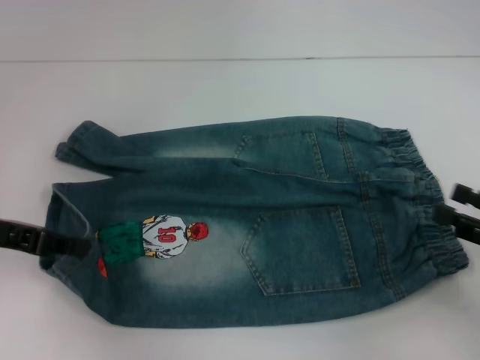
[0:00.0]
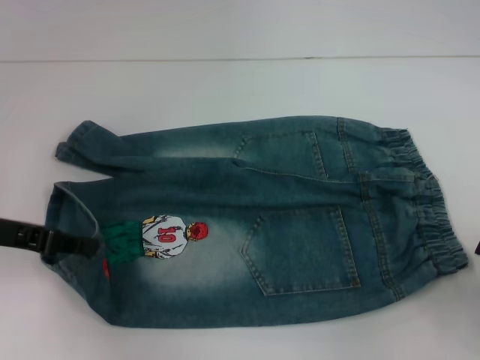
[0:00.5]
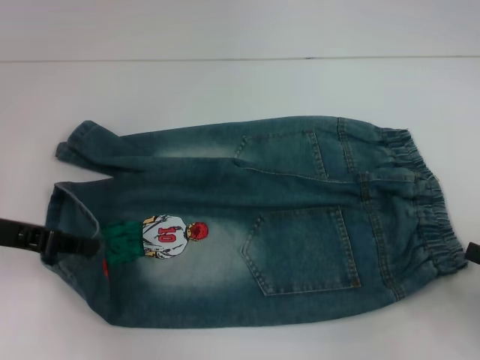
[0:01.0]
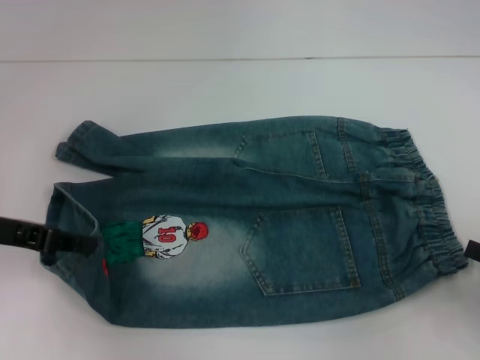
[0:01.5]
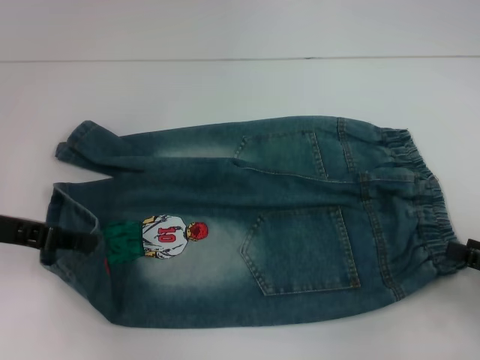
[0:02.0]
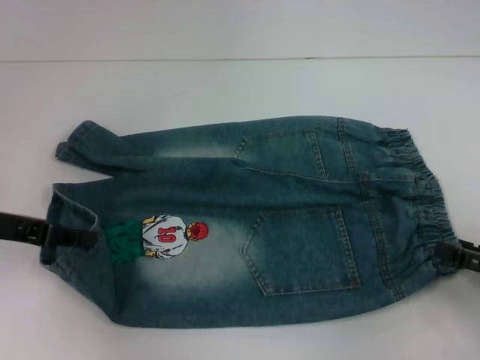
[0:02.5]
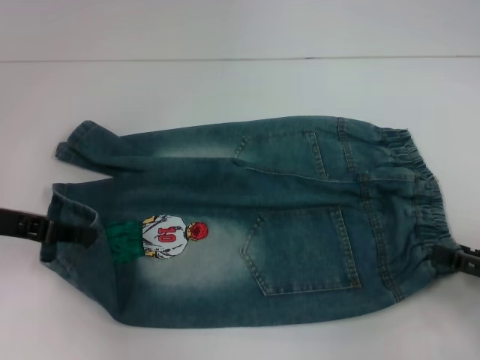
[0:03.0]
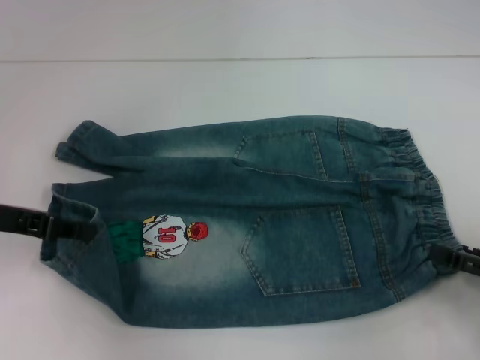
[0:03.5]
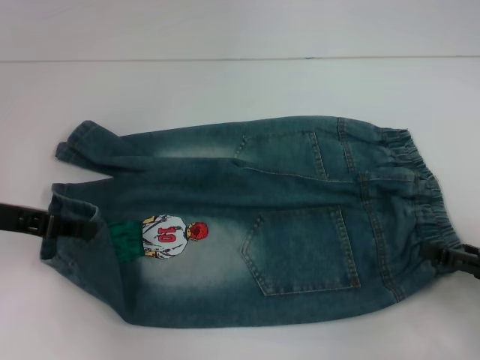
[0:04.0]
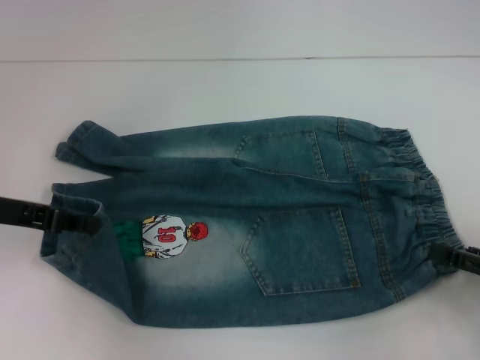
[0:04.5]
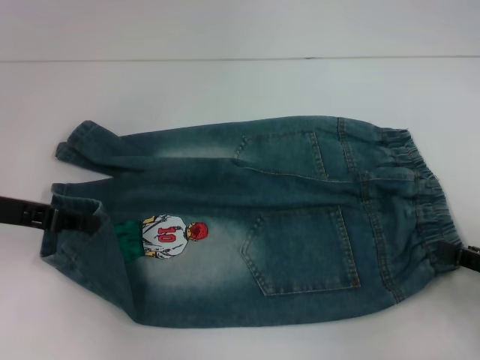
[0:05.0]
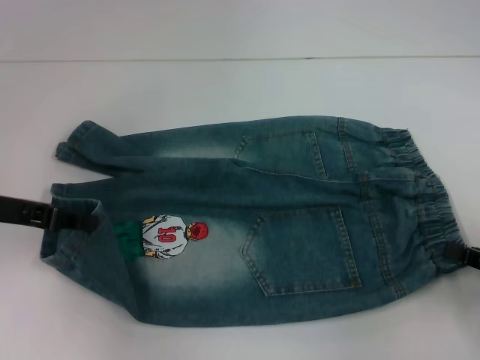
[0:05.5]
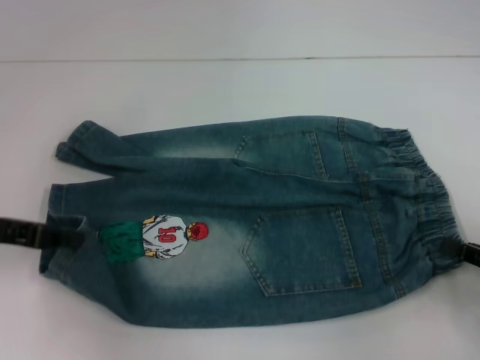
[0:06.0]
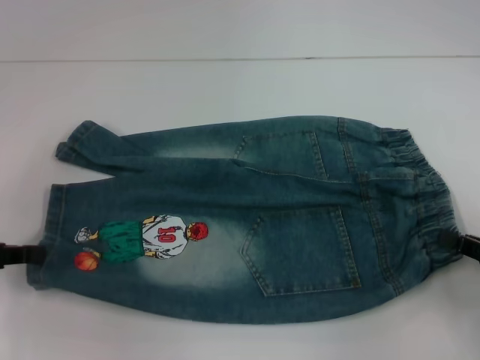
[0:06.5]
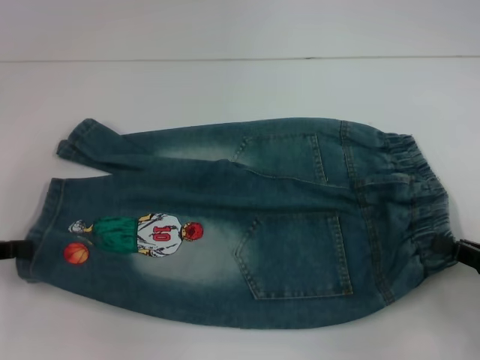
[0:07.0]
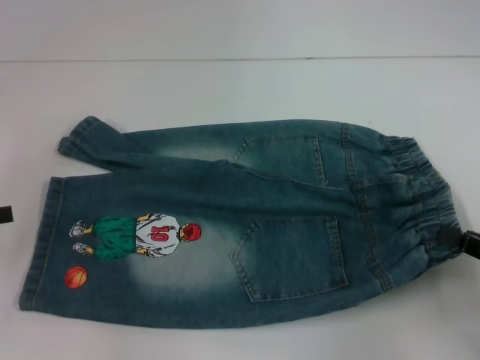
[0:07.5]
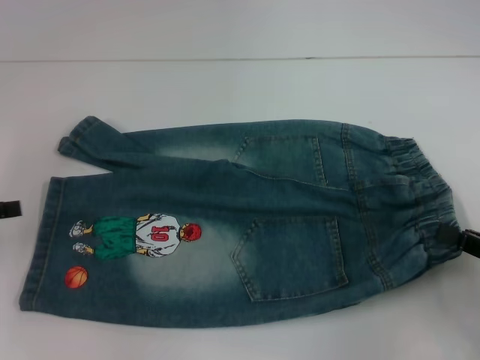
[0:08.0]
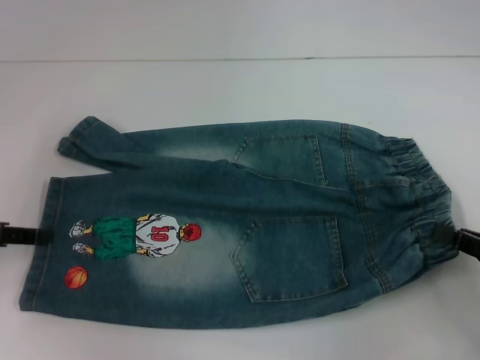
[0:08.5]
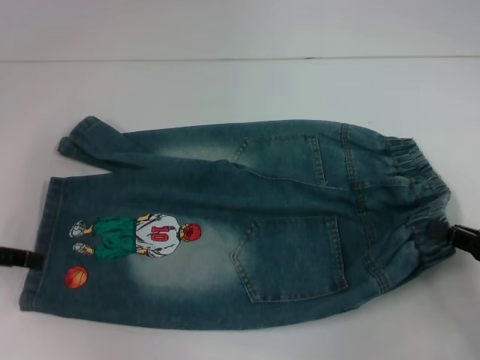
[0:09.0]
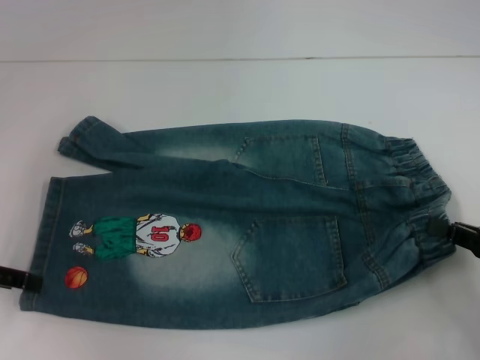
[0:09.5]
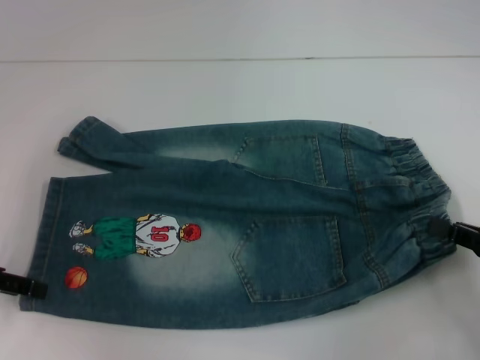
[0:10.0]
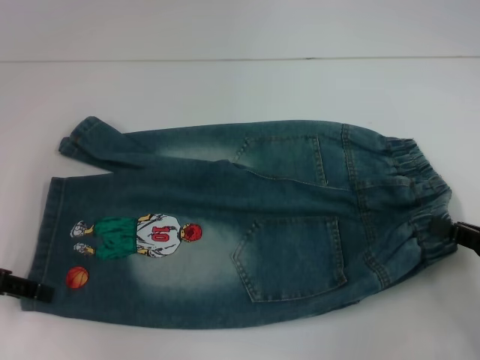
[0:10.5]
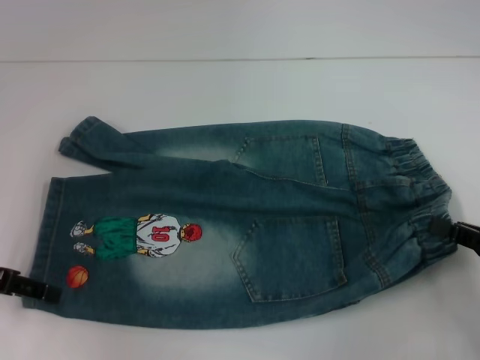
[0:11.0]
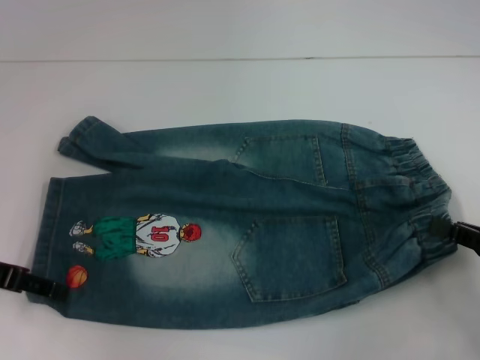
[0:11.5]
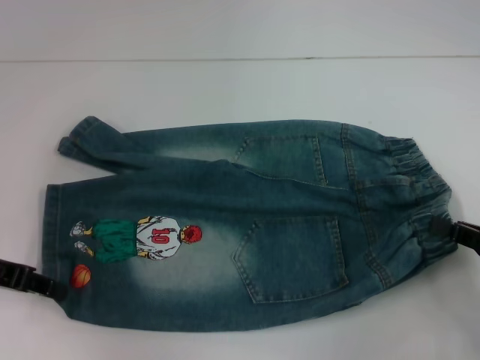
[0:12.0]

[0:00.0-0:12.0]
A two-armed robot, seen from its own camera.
Step, 0.0 to 3.5 s: Hold the lower right waistband with your right hand.
2.0 to 4.0 s: The grippers stay close to where they were, moving slightly.
4.0 to 6.0 s: The right gripper closes up.
6.0 to 8.0 s: The left gripper travels to the left by some 5 cm.
8.0 to 10.0 s: The left gripper opens.
10.0 to 12.0 s: The left gripper closes up.

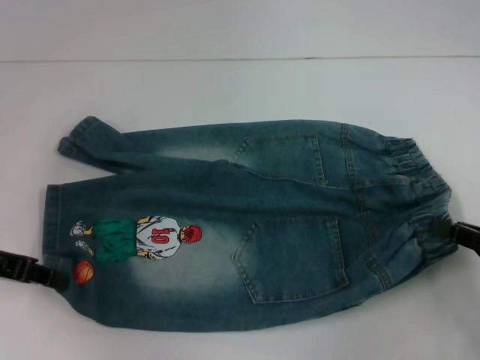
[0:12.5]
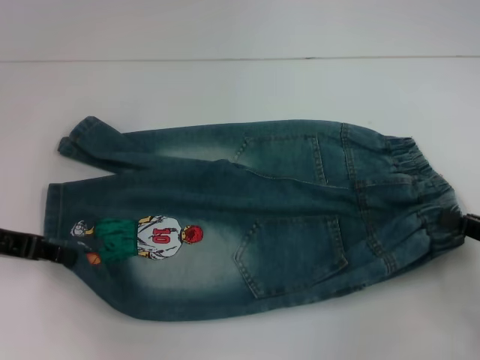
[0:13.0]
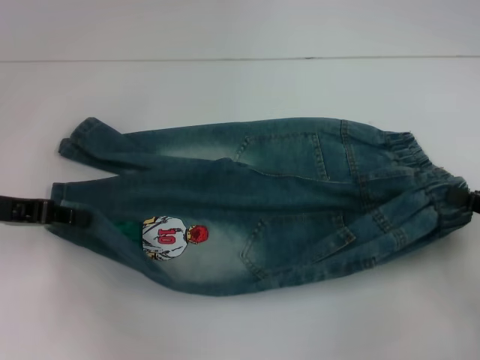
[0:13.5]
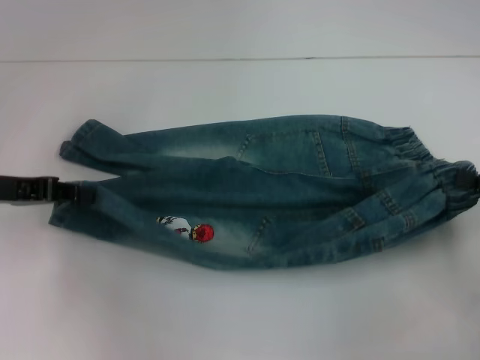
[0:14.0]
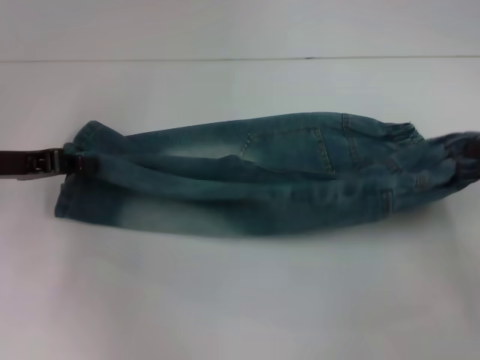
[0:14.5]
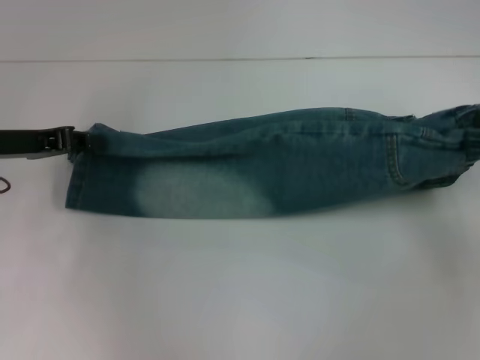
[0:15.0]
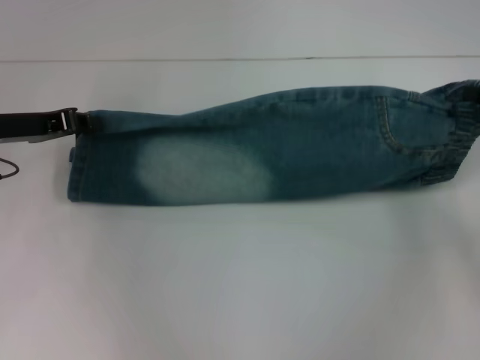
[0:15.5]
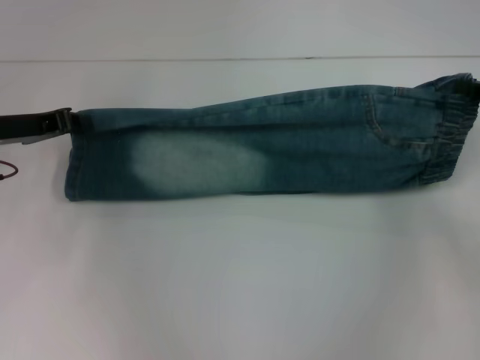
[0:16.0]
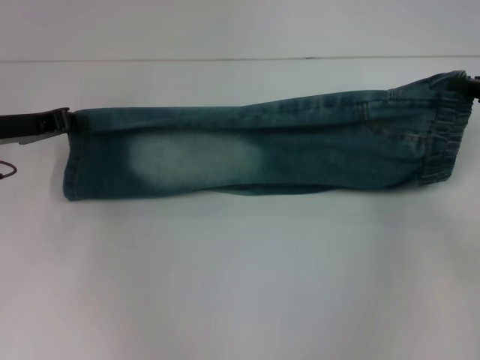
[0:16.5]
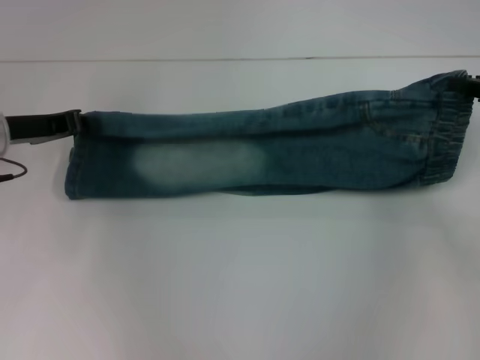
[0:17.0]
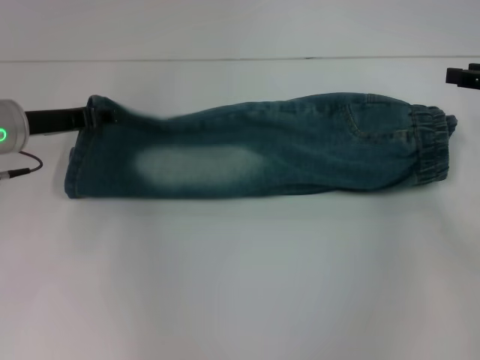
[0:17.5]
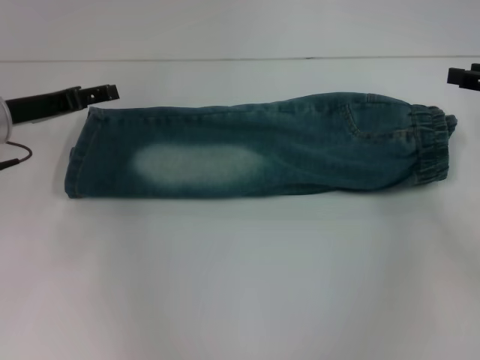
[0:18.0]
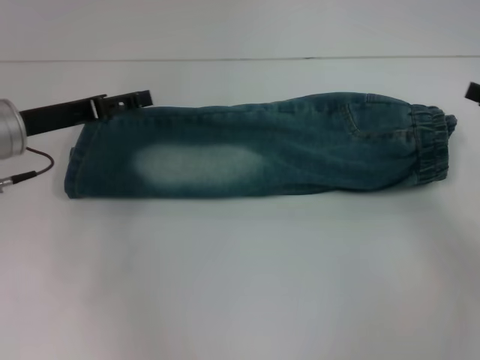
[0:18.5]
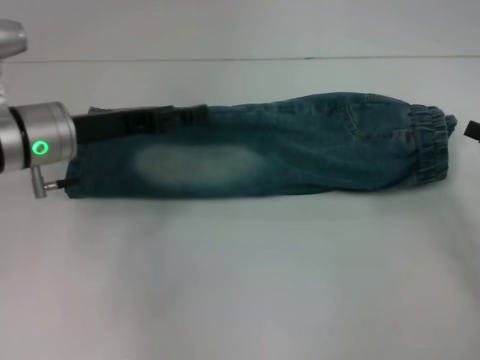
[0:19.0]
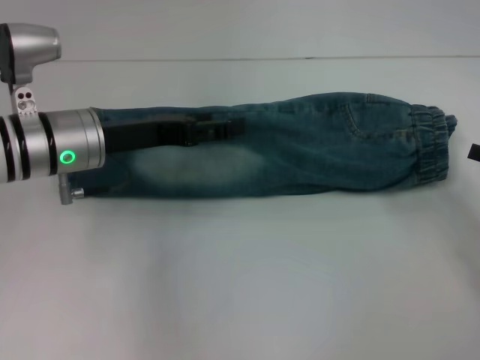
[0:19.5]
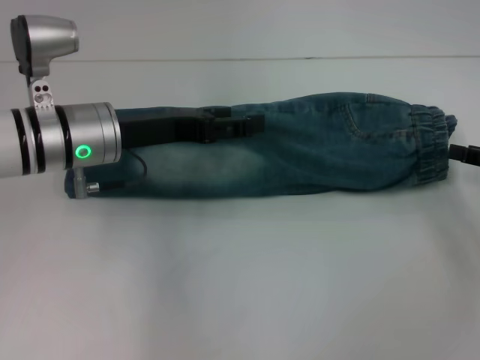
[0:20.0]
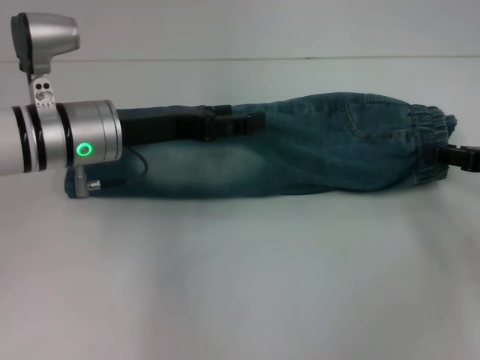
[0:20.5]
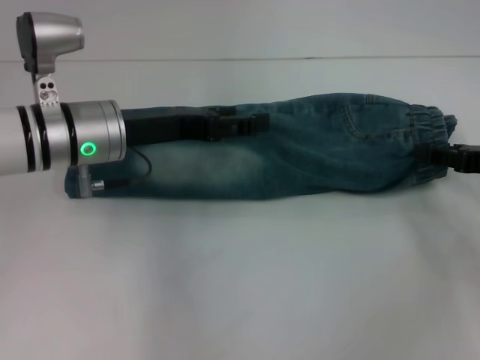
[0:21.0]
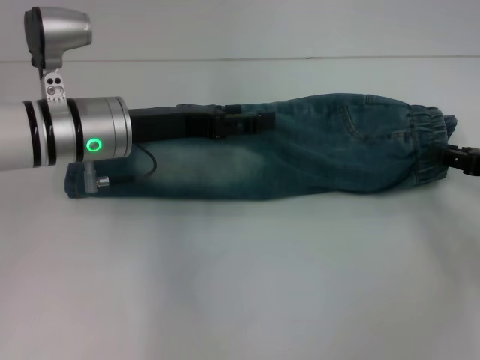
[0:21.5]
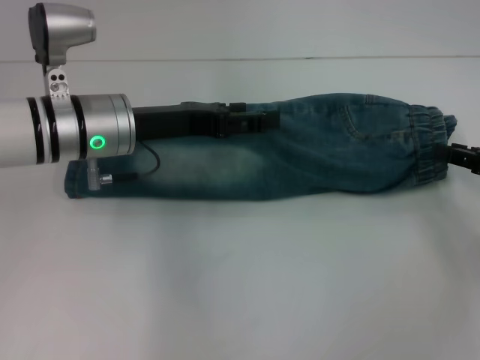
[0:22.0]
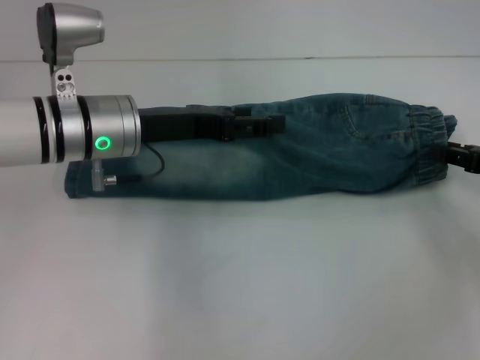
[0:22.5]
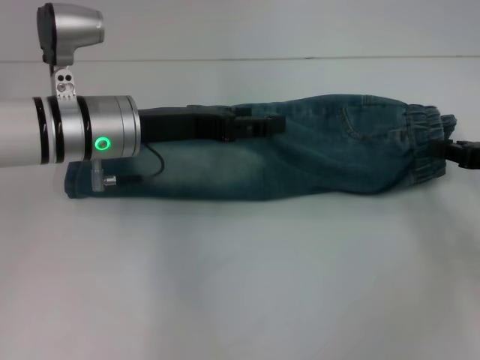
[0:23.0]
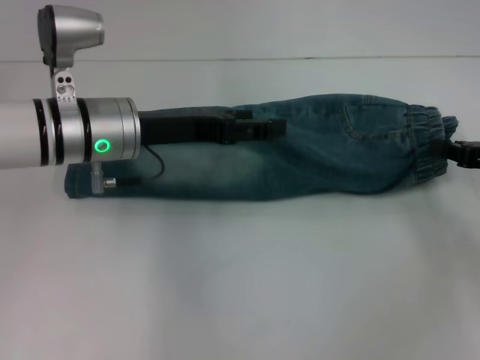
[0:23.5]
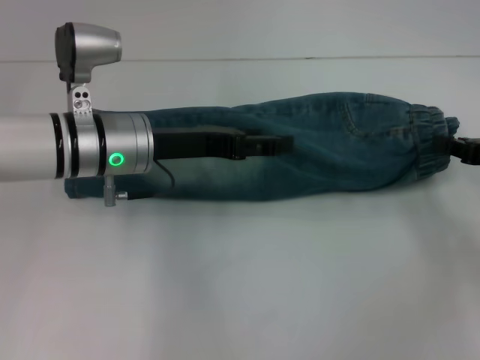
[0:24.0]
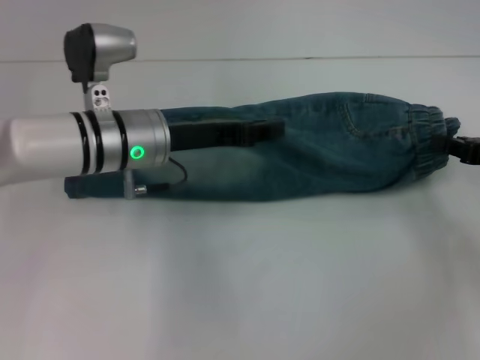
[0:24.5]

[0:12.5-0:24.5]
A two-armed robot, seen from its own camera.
Step, 12.5 to 18.0 s: Fold upward with your right hand.
Step, 18.5 to 22.0 s: Grab the waistband with your right hand.
12.5 to 14.5 s: The right gripper shifts roughly 10 cm forward and upward.
14.5 to 16.5 s: The right gripper goes some 10 cm forward.
16.5 to 18.5 s: The left gripper opens, while the right gripper heads backward, covering some 5 cm, and opens its fingers.
18.5 to 20.5 s: The left gripper goes some 10 cm to the right.
20.5 to 22.5 s: The grippers move only a little.
22.5 to 24.5 s: The left gripper closes its fingers; the right gripper closes its fingers.

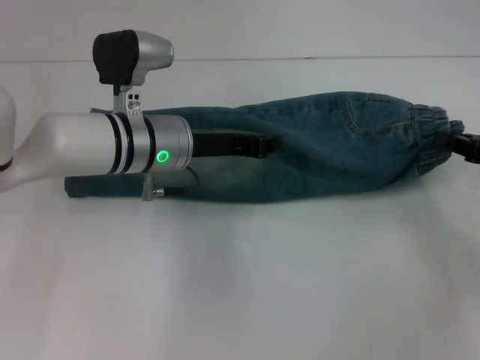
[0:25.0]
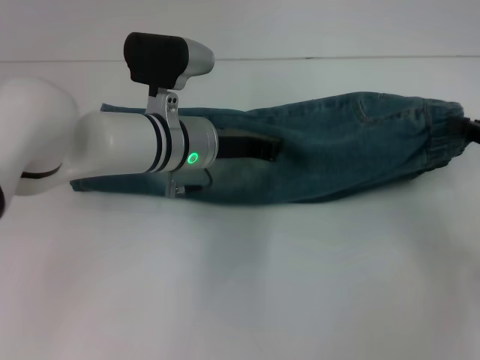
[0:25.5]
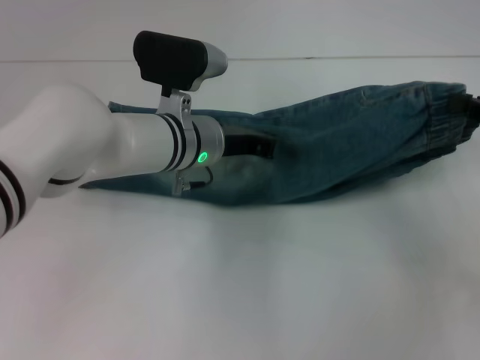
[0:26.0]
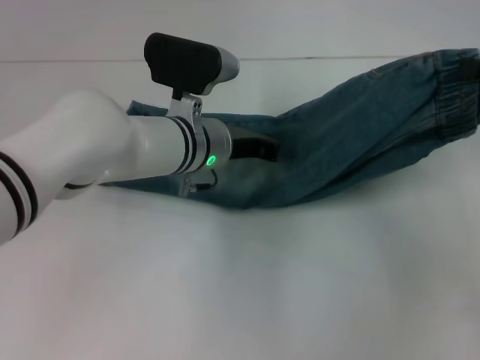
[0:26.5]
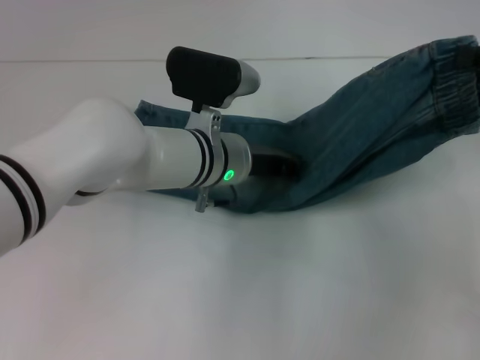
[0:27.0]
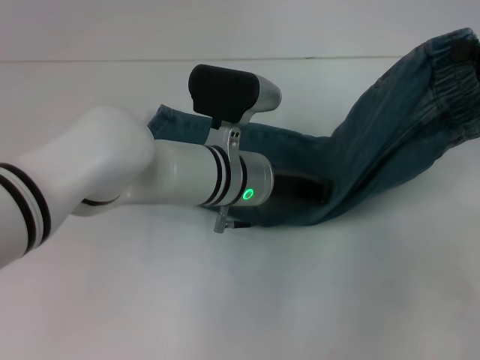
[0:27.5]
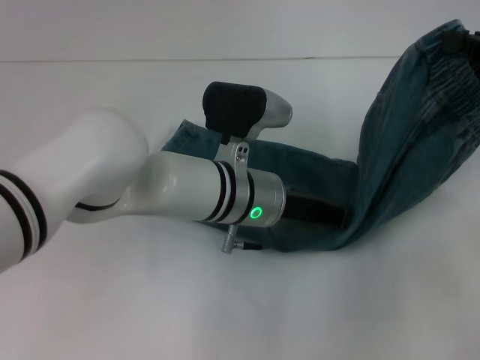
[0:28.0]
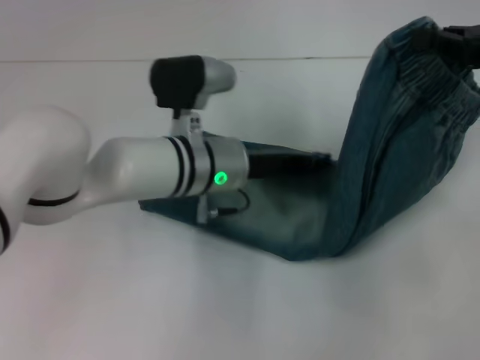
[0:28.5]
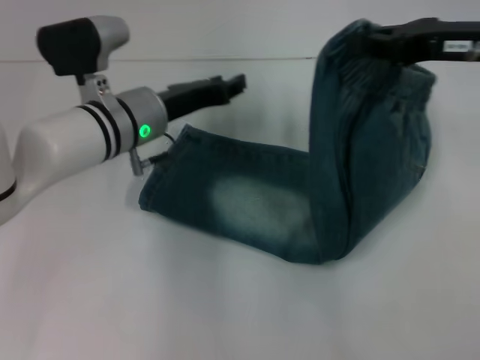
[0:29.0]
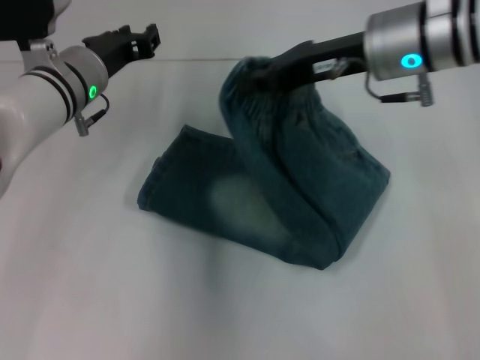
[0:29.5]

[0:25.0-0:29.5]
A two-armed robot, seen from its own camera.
Step, 25.0 to 28.0 s: Press the middle of the pants with your left hand.
25.0 to 27.0 s: The left gripper is displaced to the right by about 5 cm, while the right gripper heads upward, covering about 10 cm.
27.0 to 29.5 s: The right gripper heads to the left and forward, covering about 20 cm. The left gripper moves to the left, some 15 cm, and opens up.
